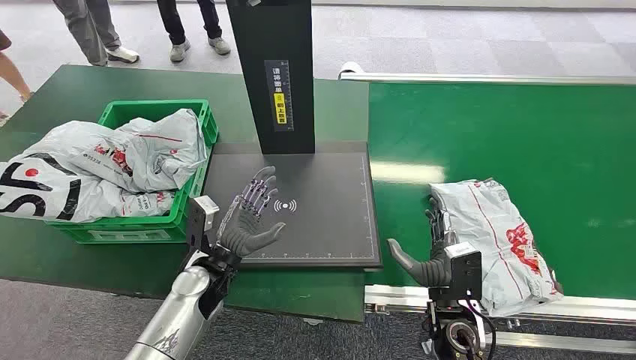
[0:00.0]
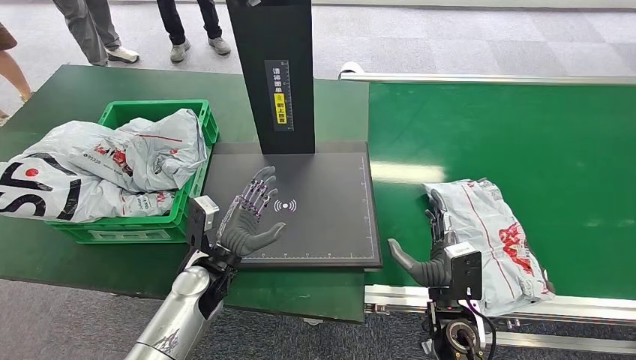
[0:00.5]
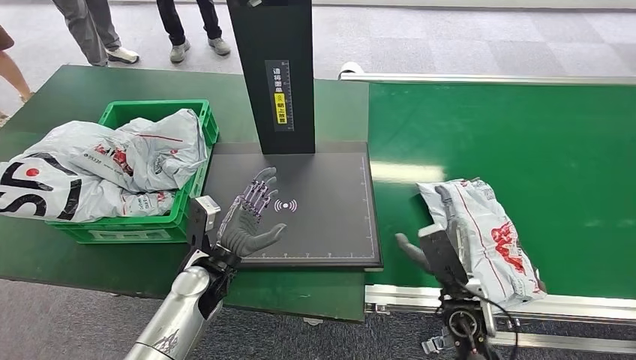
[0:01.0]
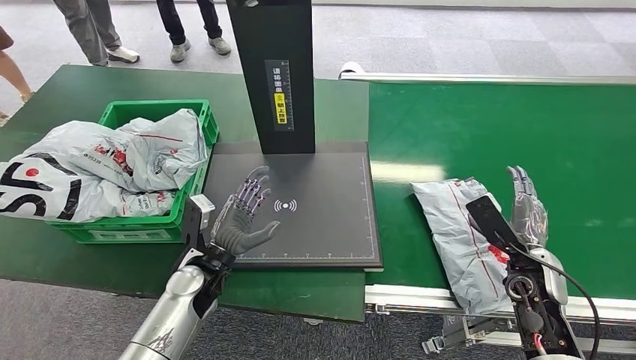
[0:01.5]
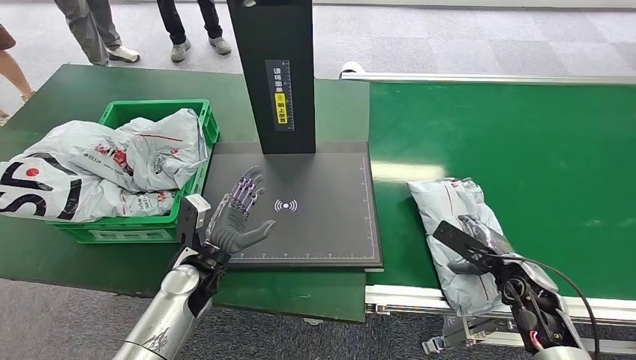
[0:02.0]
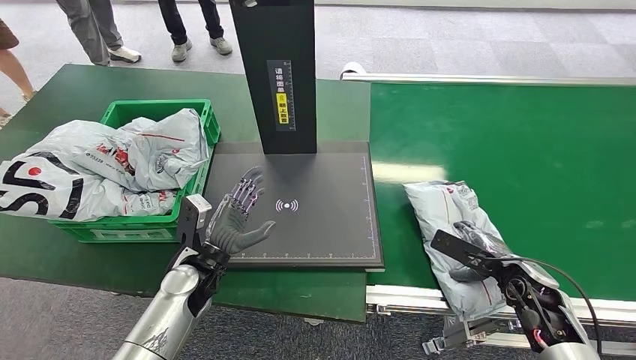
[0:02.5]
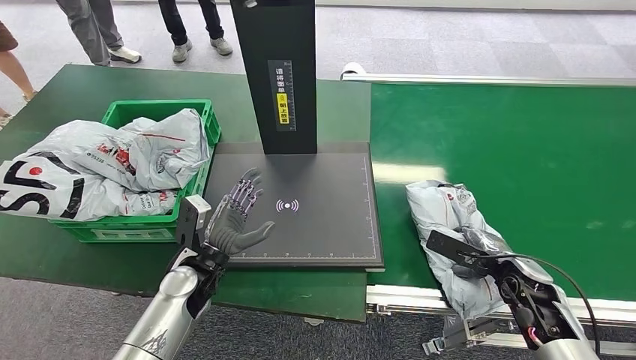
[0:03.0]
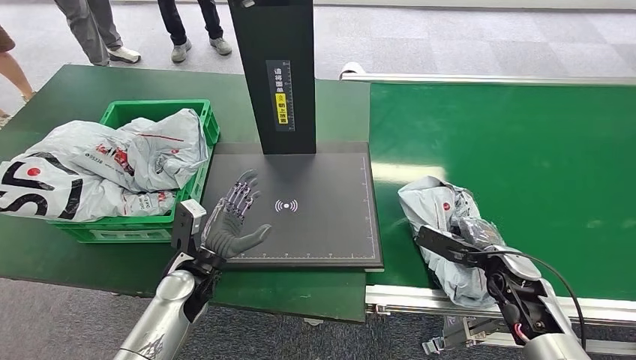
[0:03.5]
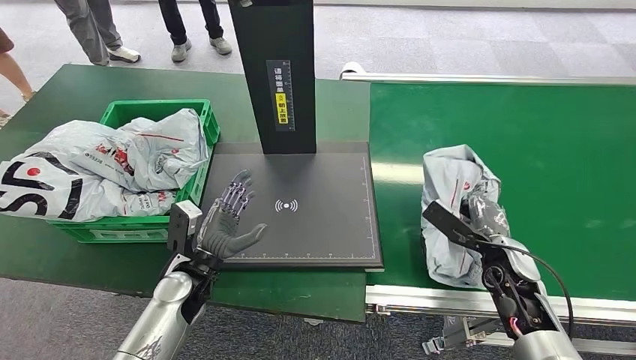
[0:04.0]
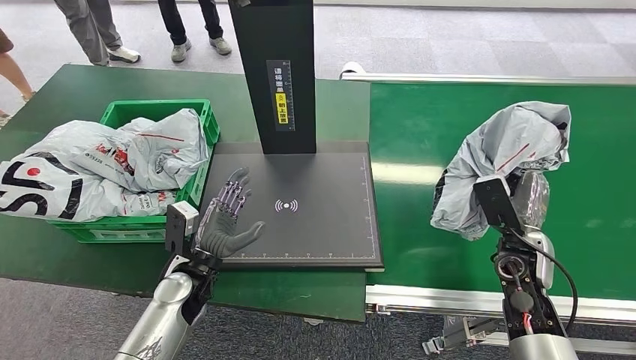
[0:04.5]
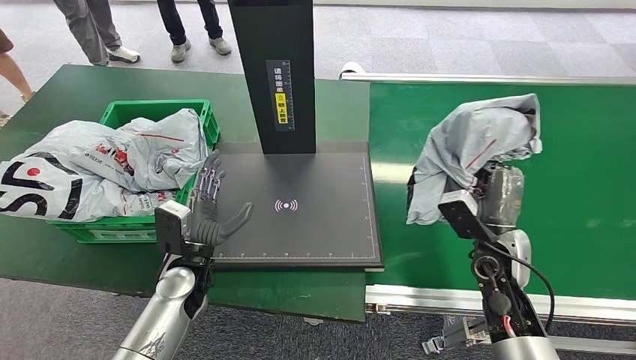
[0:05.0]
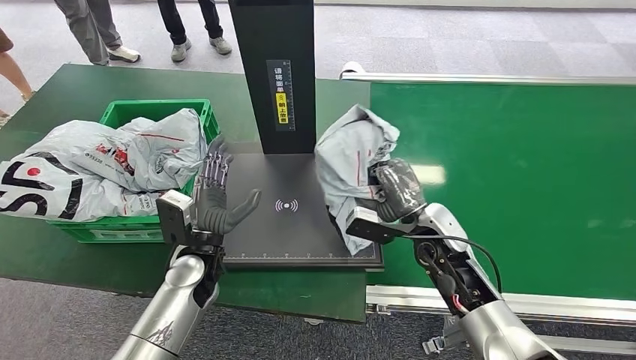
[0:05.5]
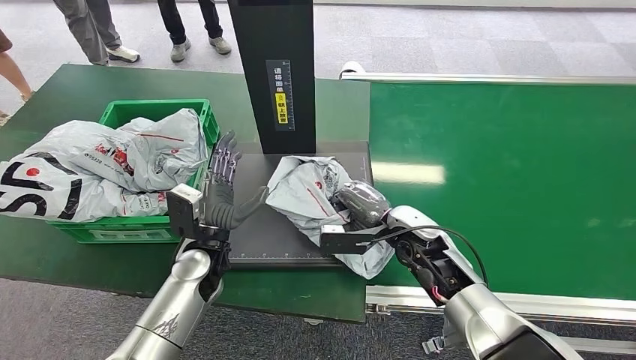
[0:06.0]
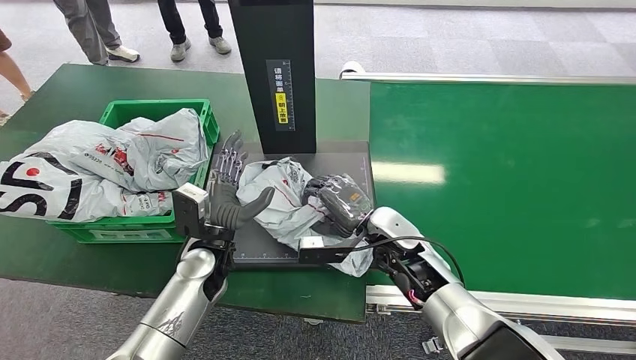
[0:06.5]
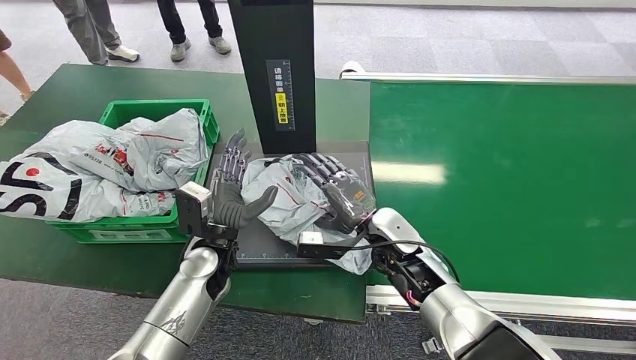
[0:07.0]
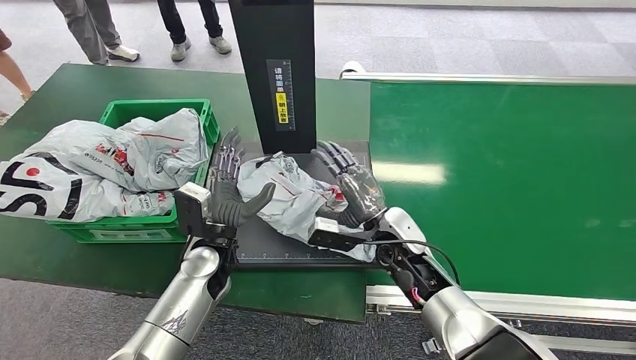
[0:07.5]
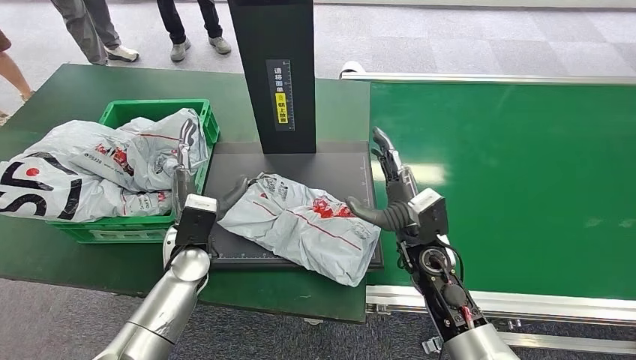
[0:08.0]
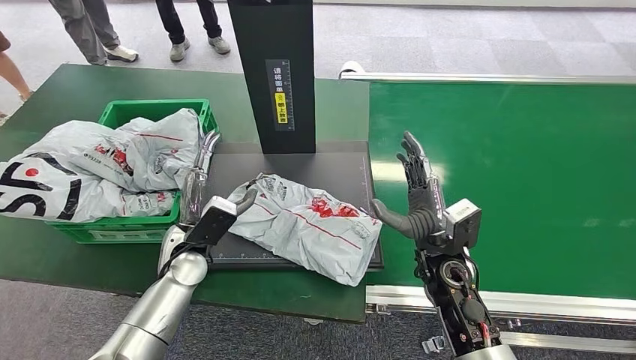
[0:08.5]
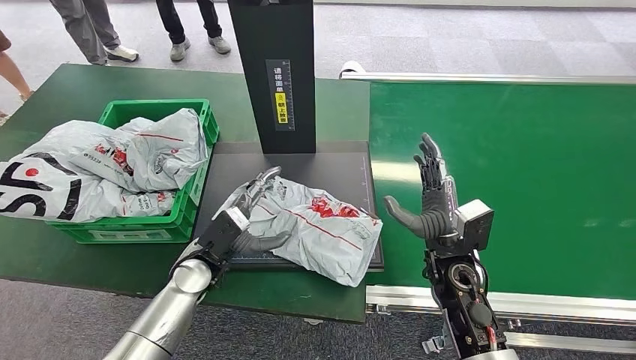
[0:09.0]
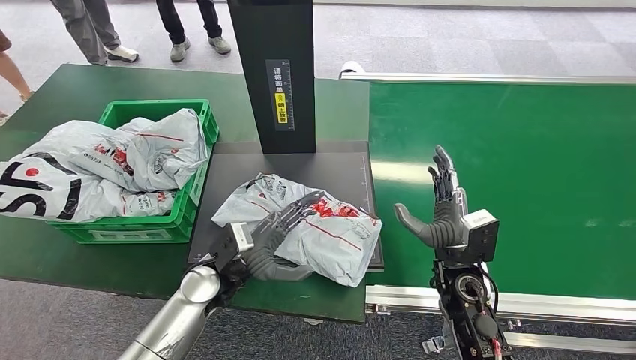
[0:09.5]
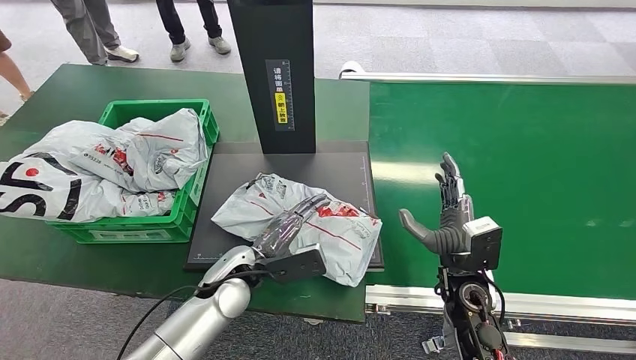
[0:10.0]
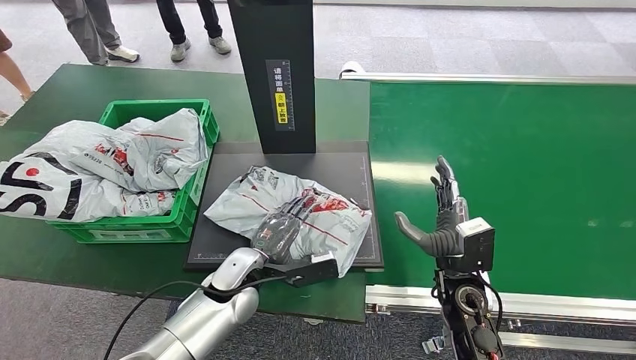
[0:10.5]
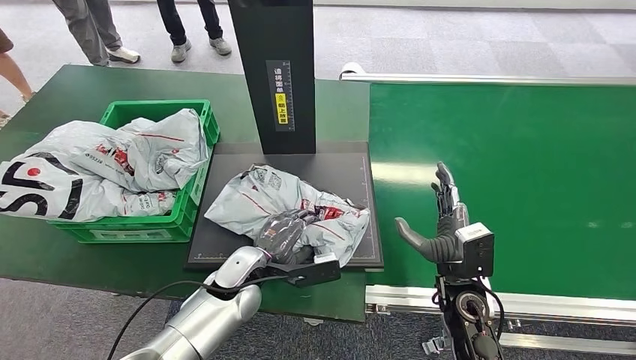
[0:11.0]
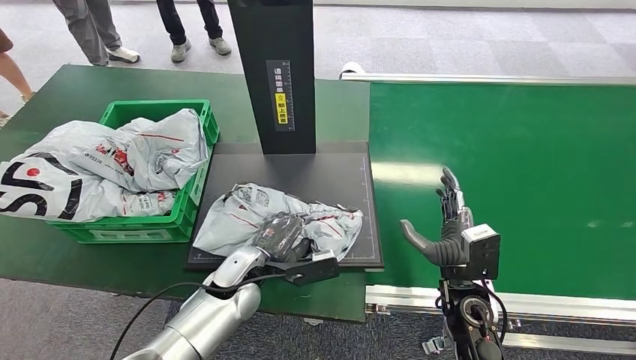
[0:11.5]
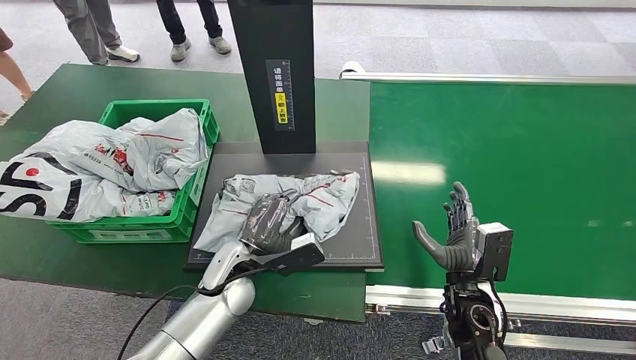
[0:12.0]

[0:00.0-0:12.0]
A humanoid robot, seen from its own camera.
Step, 0:00.0 to 0:04.5: Pick up the package from the conveyor belt.
Step, 0:05.0 to 0:08.5: Place the package onto the inbound machine.
0:02.0 to 0:04.0: There are only small adjustments of the hands.
0:04.0 to 0:06.0: The right hand goes about 15 cm to the left; the left hand shifts by roughly 5 cm.
0:08.0 to 0:10.0: The hands both shift to the right by about 5 cm.

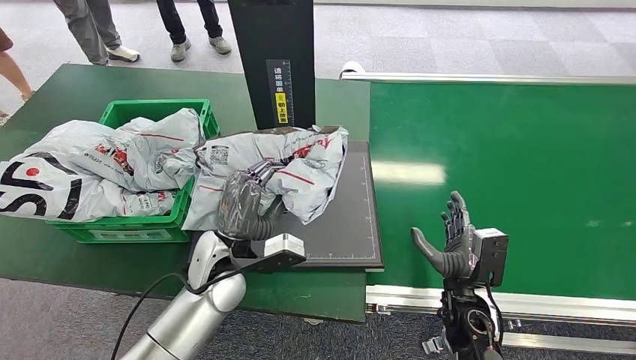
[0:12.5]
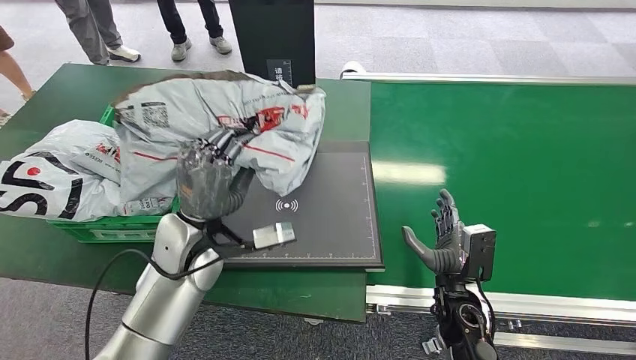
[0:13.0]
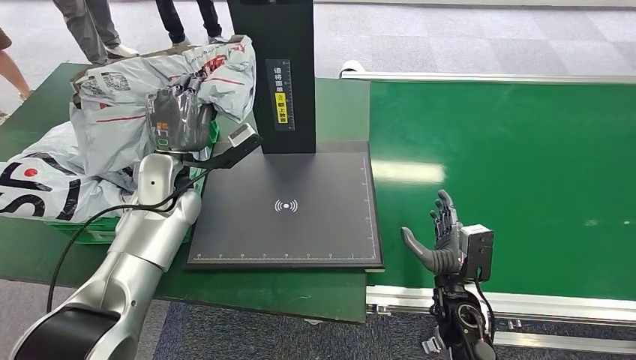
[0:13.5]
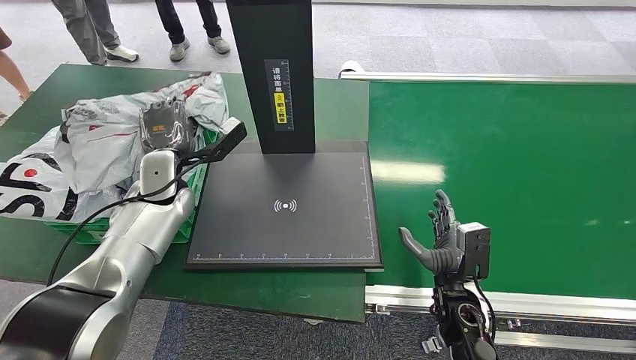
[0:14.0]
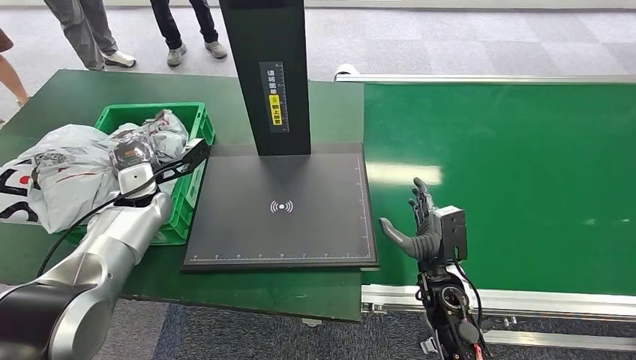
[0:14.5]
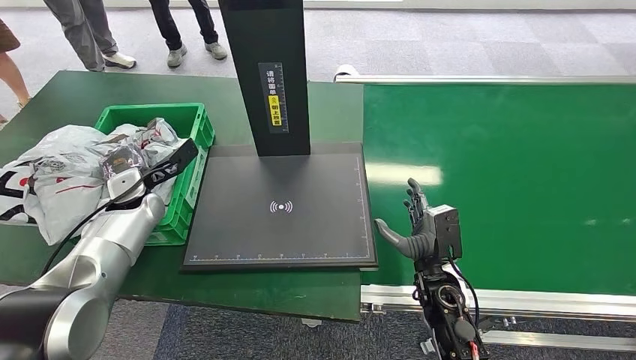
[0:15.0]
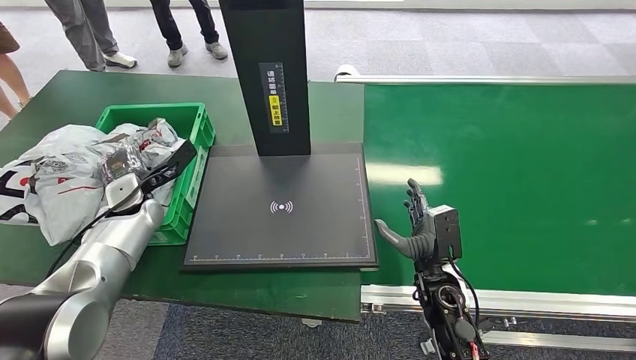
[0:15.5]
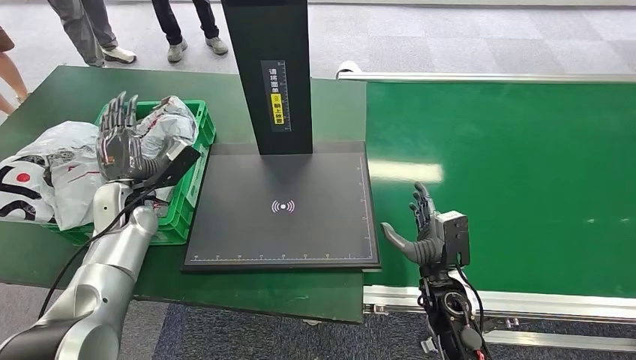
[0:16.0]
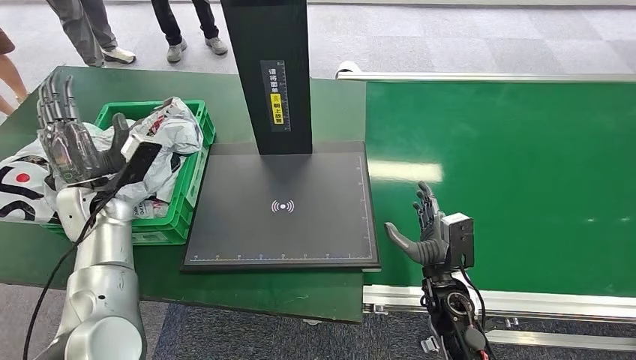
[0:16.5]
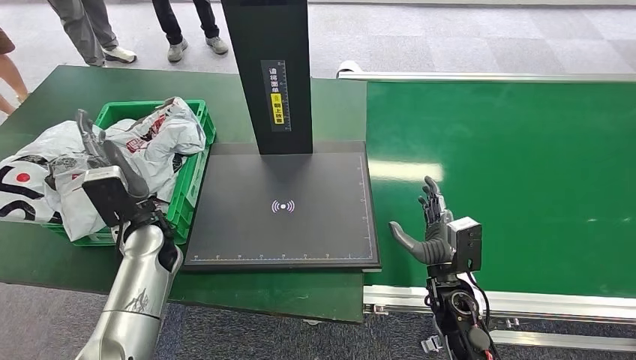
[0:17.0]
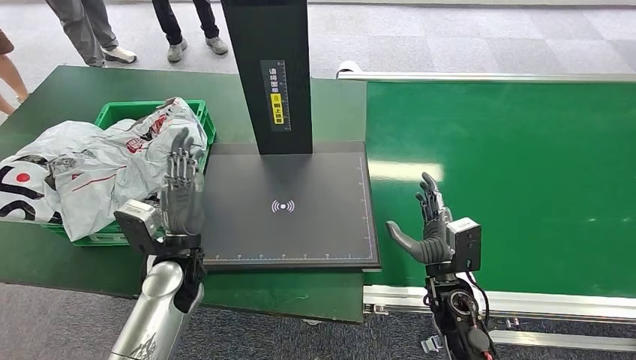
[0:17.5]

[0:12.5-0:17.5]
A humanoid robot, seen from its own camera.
Step, 0:13.0 to 0:17.5: Place the package into the parcel locker.
